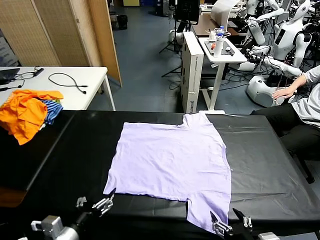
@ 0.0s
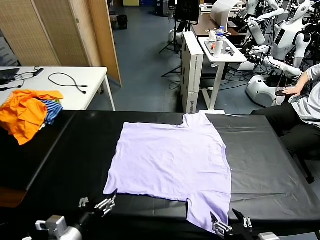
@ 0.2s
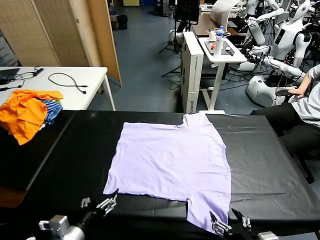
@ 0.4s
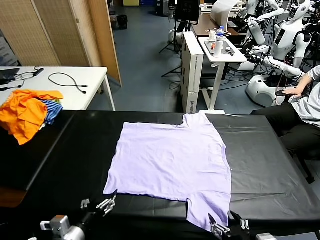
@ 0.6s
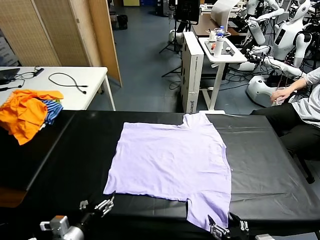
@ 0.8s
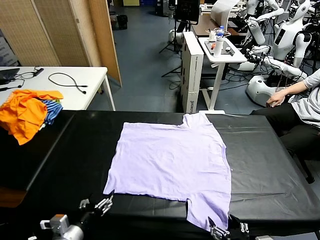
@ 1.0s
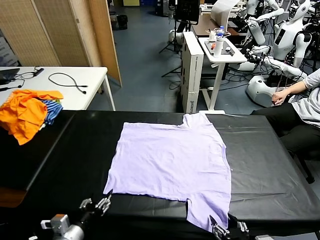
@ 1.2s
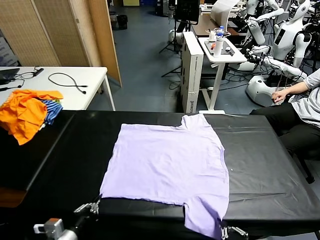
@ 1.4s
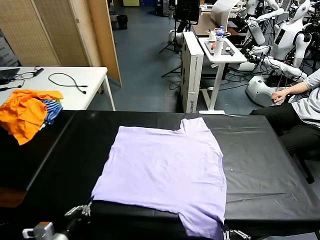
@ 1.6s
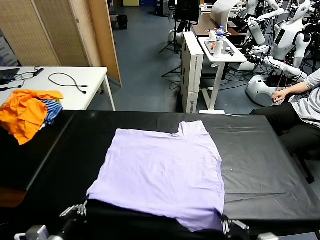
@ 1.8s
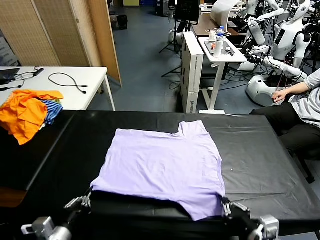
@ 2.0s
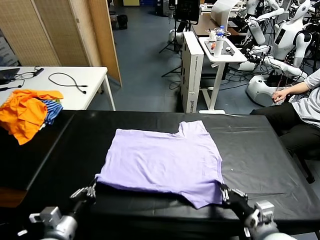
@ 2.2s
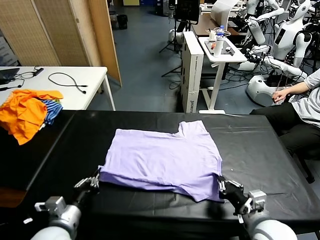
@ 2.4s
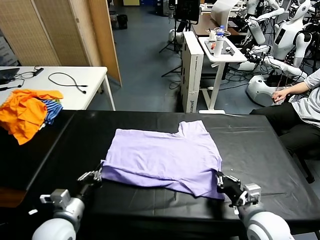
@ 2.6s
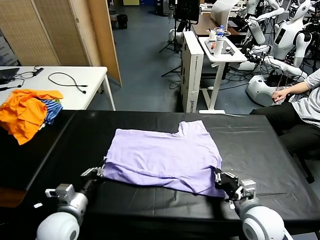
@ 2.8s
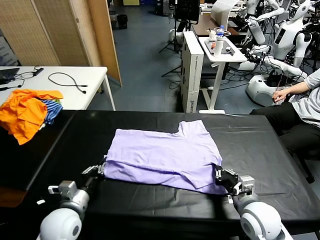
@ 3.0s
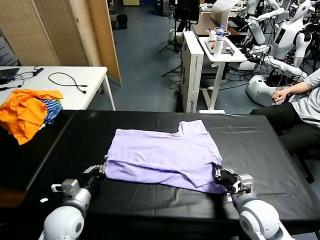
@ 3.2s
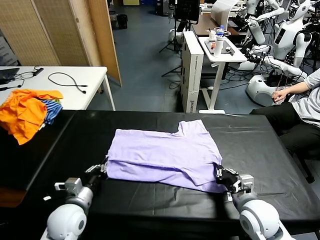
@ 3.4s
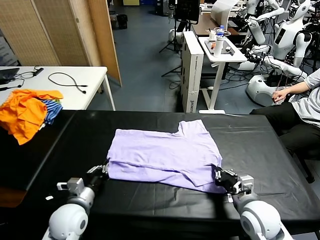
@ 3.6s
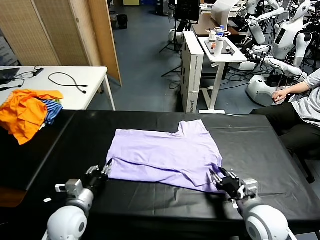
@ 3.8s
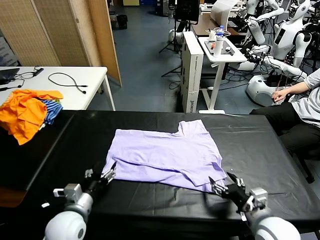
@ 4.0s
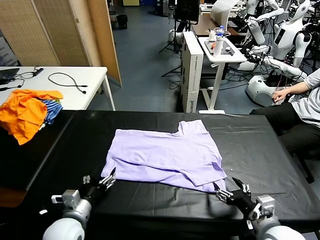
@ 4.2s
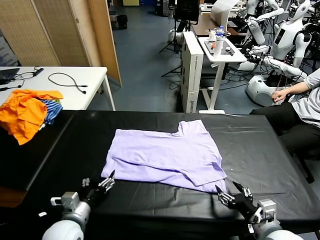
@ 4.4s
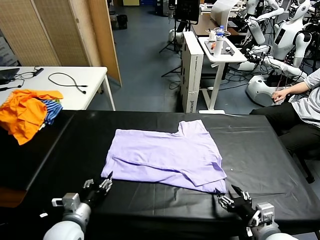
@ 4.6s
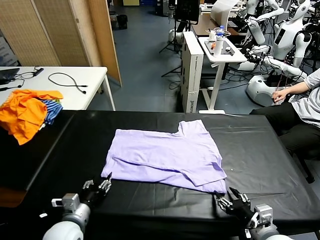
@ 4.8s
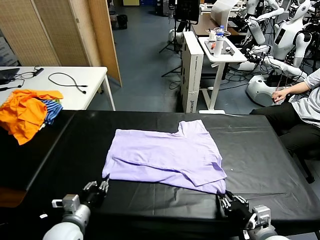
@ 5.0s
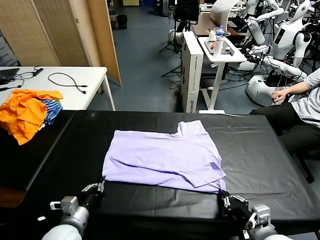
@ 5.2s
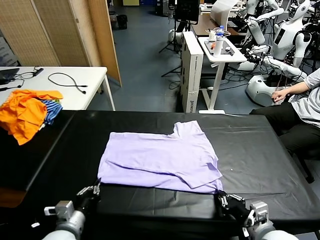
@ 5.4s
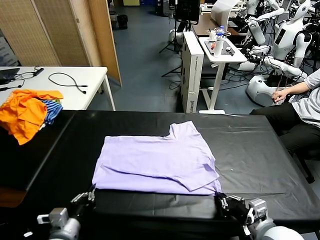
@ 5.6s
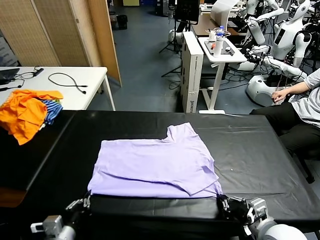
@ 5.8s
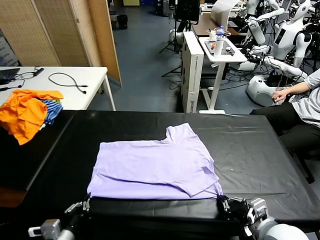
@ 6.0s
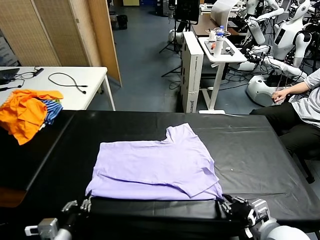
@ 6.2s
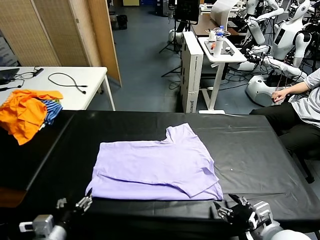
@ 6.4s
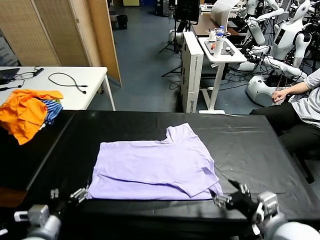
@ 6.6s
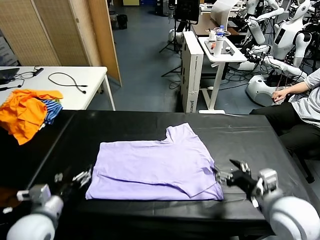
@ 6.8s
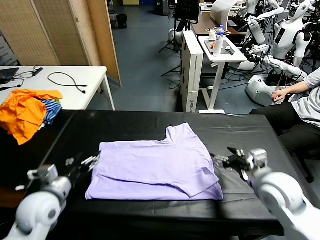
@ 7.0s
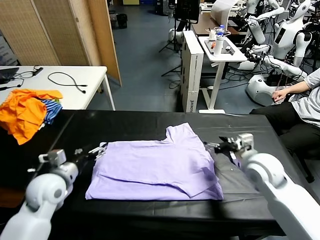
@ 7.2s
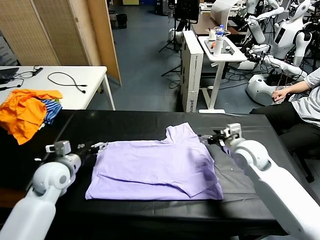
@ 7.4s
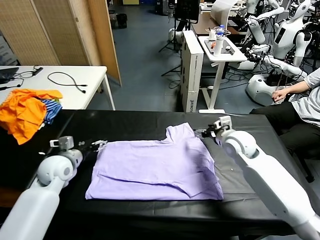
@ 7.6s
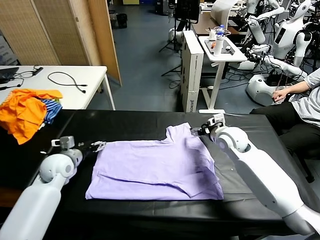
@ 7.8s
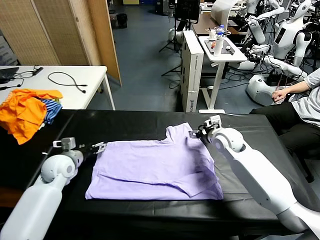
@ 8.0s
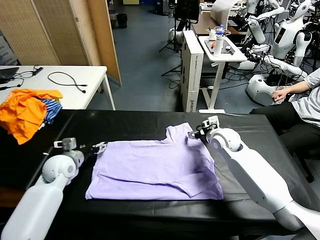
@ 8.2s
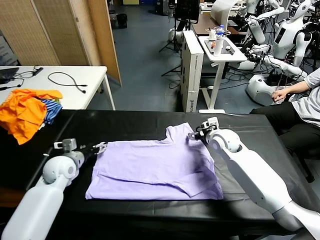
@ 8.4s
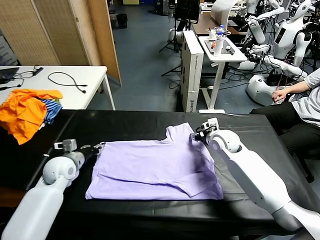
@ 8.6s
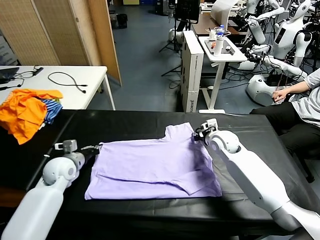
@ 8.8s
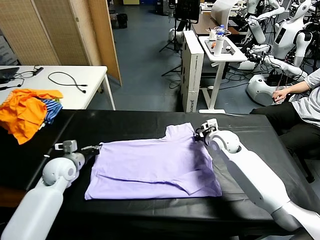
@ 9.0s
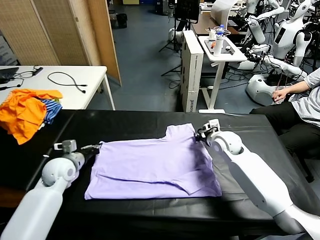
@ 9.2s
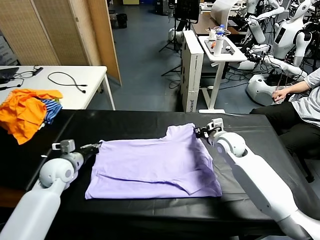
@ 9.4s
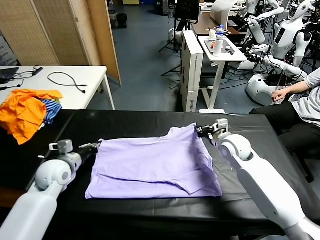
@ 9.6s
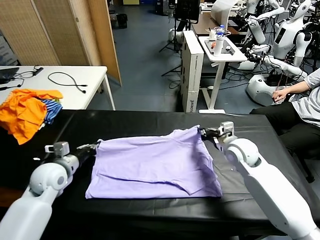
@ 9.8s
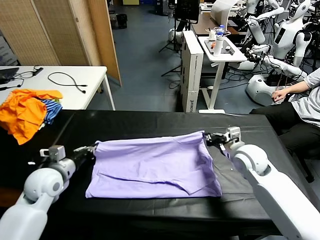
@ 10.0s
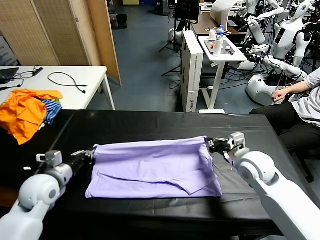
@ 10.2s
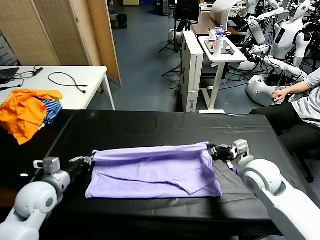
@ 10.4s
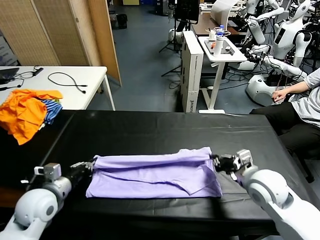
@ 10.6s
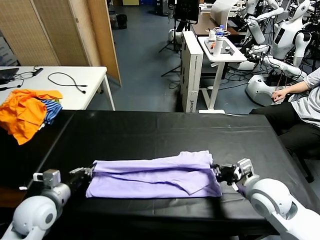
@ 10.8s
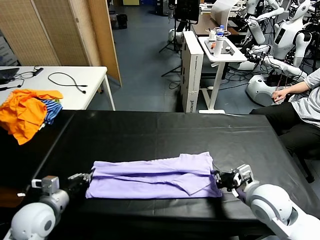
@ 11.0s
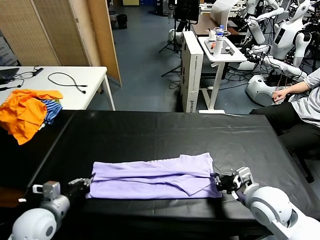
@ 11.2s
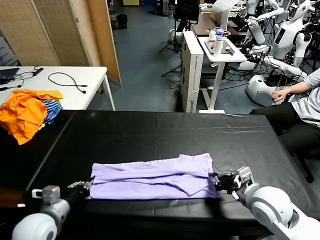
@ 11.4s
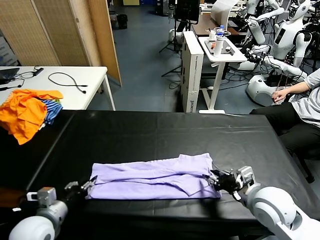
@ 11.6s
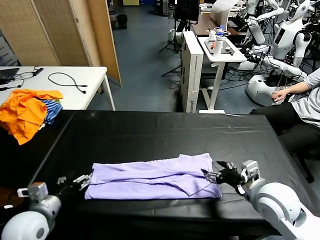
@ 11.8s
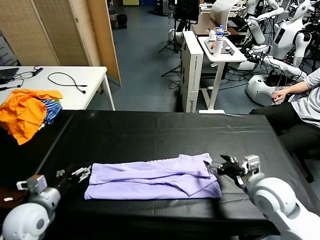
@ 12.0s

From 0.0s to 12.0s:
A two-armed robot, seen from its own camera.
Task of the whole recording: fold and organize the clothes.
Step, from 0.0s to 1.4s: use both grippers simultaneously to clamp the lower edge of the clothing fabric.
Step, from 1.6s to 3.8s: use both grippers to drag the lower edge of the fabric forward and fold it over the upper edge.
Step, from 4.0s to 6.4s: Drag the clothes downward with both gripper.
Step, from 6.6s to 9.4s: use both grippers simultaneously to clamp the upper edge of the clothing fabric.
From 1.6s to 3.0s: The right gripper shifts some 15 cm forward, while the left gripper ends up about 5 cm from where it was.
From 3.0s to 4.4s: The left gripper moves forward, some 5 cm, and opens. Meanwhile the right gripper opens up.
From 4.4s to 6.0s: The left gripper moves backward, about 5 cm, and closes. The right gripper closes up.
From 6.0s to 7.6s: The right gripper heads forward, covering about 20 cm, and opens, while the left gripper travels forward and upward by roughly 15 cm, and opens.
From 7.6s to 9.0s: The left gripper travels forward and downward by some 10 cm, and closes up; the right gripper moves forward, downward and to the left, roughly 15 cm, and closes up.
From 9.0s to 10.4s: The left gripper goes approximately 5 cm backward, and closes its fingers; the right gripper travels backward by about 10 cm, and closes its fingers.
From 10.4s to 12.0s: The grippers both shift backward by approximately 15 cm. The right gripper opens its fingers. Meanwhile the left gripper opens its fingers.

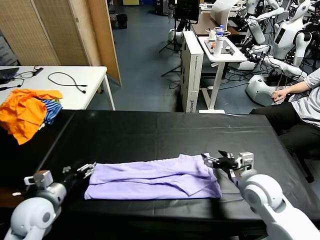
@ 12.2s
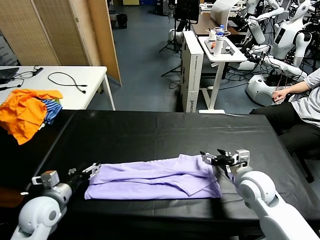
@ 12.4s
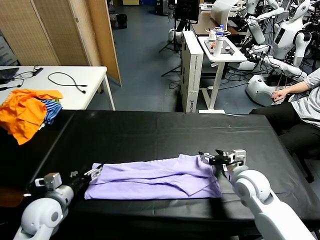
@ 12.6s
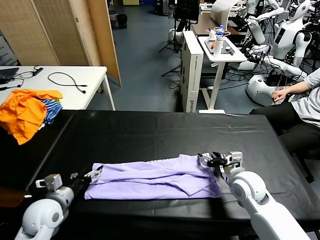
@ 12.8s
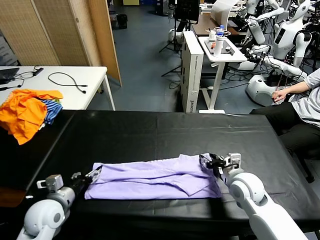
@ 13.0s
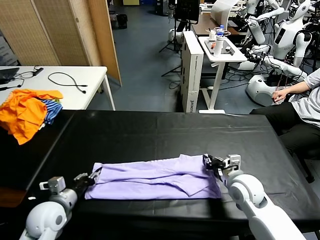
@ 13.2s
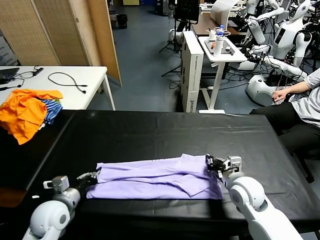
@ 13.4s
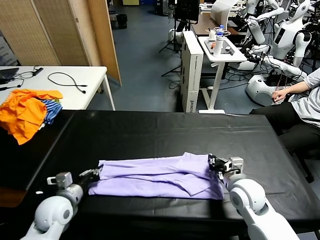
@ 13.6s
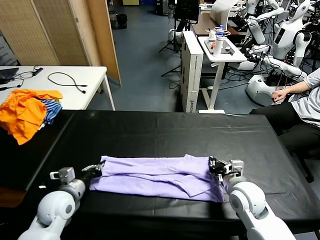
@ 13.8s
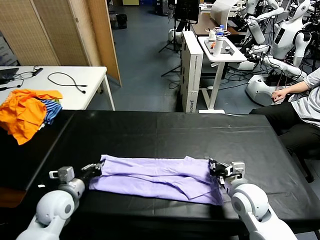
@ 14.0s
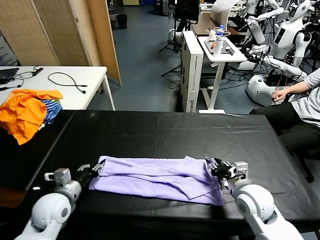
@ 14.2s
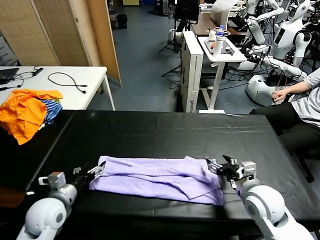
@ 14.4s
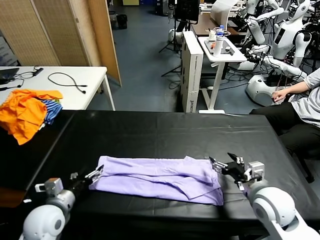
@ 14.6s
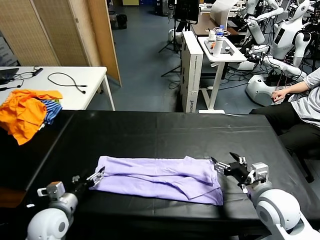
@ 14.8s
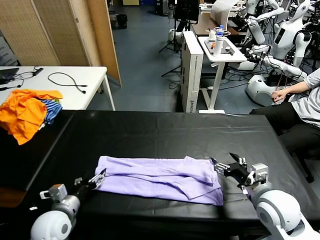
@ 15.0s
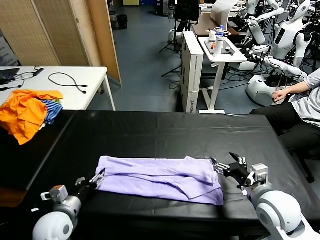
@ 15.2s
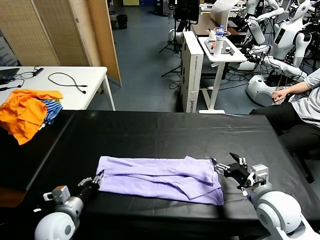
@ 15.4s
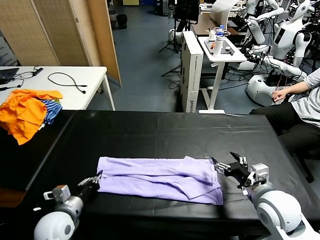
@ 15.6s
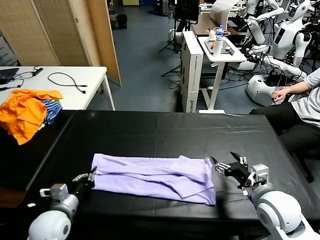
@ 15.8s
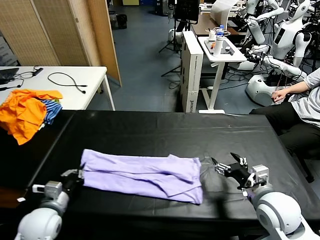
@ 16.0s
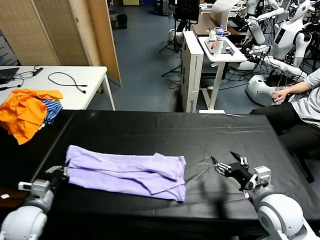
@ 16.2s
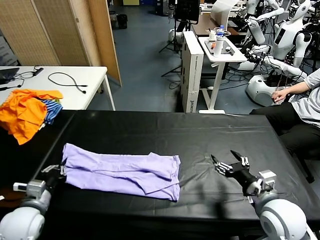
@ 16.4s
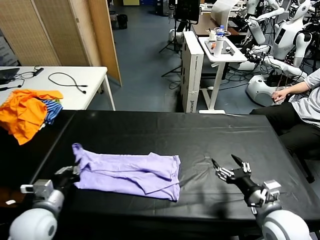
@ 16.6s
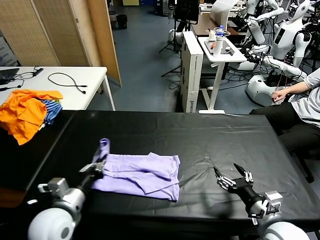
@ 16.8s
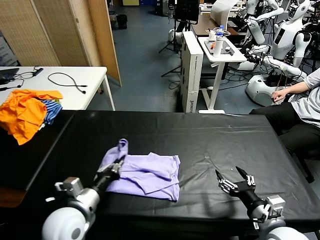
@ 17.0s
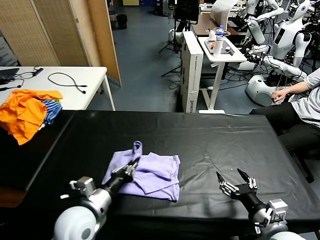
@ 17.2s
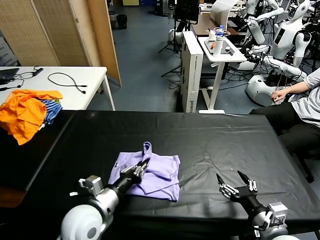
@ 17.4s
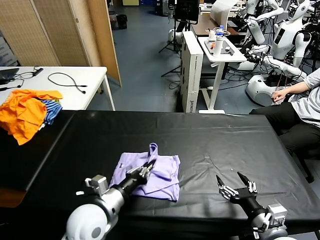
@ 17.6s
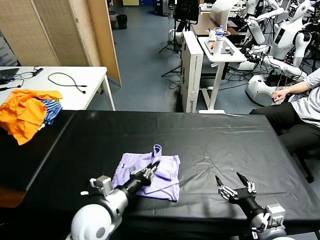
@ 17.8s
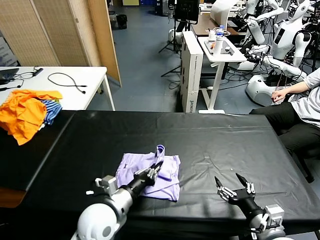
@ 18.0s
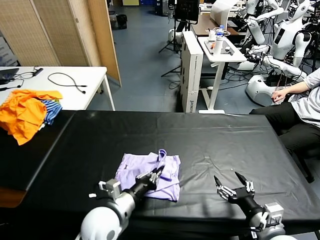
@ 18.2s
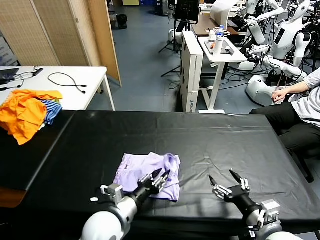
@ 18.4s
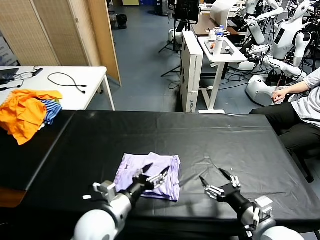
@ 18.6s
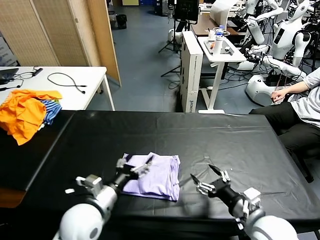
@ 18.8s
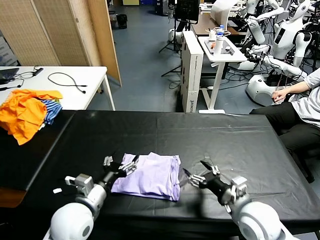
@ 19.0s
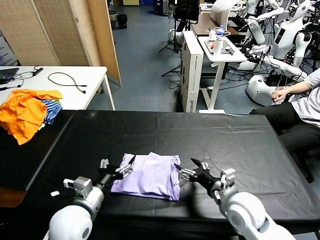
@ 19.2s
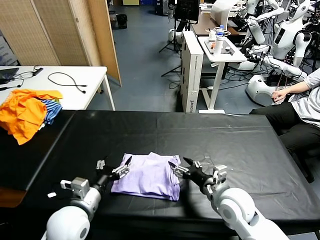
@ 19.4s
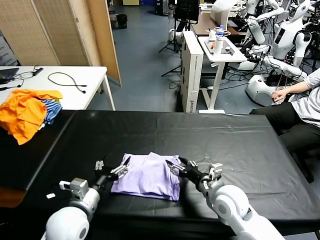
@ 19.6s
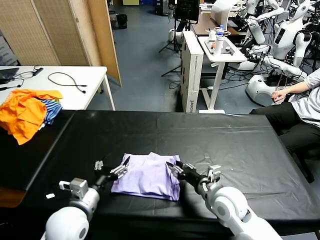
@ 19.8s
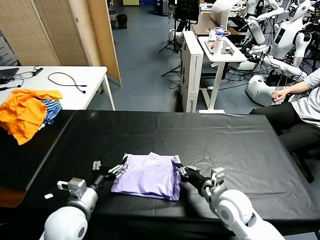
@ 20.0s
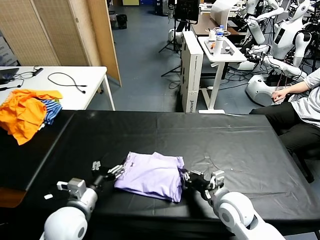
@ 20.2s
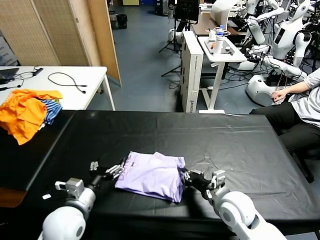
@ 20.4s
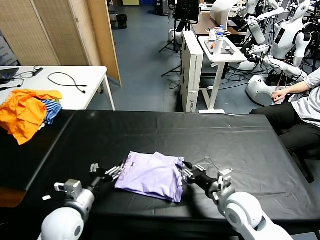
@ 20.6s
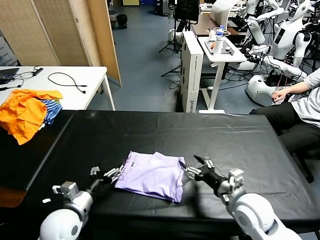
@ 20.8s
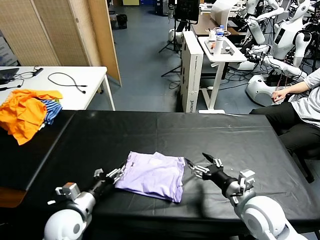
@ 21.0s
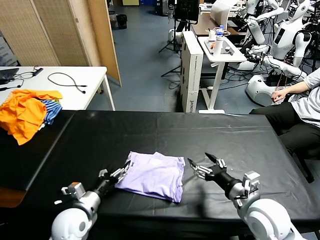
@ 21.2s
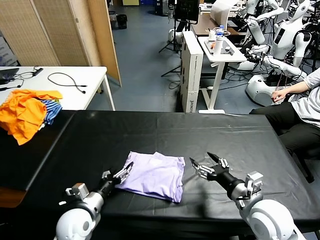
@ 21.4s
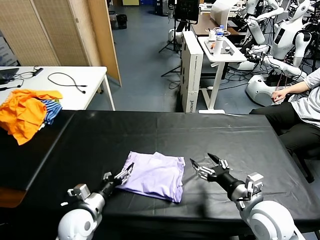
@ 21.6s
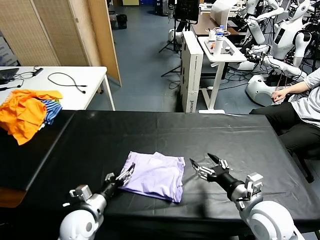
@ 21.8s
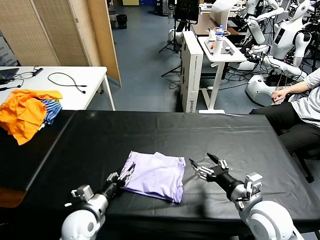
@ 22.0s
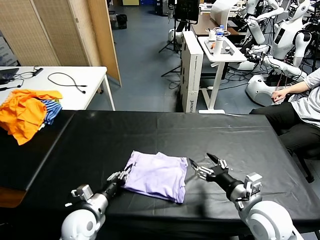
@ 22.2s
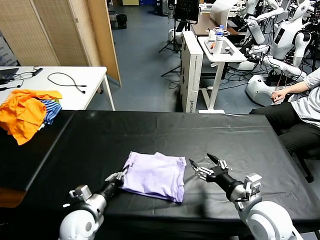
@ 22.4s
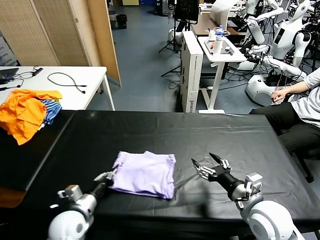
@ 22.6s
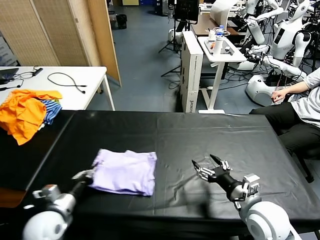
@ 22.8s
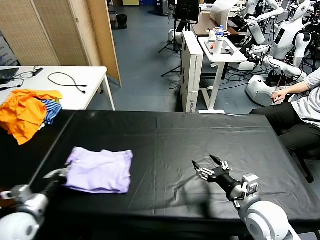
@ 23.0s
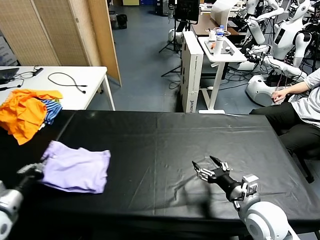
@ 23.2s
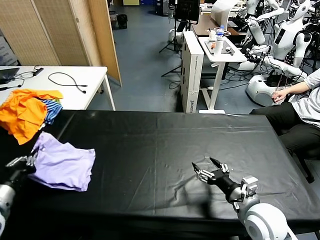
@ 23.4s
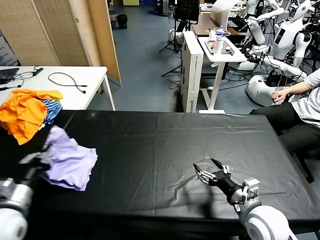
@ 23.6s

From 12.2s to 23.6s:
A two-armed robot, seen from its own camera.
Task of the whole recording: fold and organize the clothes.
Step, from 12.2s to 14.4s: use both grippers to drag the upper edge of the fabric backward and fold it over the lower edge.
Step, from 14.6s to 15.6s: use the left gripper to clamp the left edge of the fabric.
Step, from 15.8s to 20.6s: use the left gripper to drag the left edge of the fabric to the left and folds it over the right edge.
From 12.2s to 13.6s: The left gripper ends up approximately 5 cm from where it was, and closes. Meanwhile the right gripper heads downward and forward, covering about 10 cm, and closes its fingers.
From 13.6s to 15.0s: The right gripper travels backward and upward by about 10 cm, and opens. Meanwhile the left gripper opens.
From 15.0s to 16.4s: The left gripper closes up.
From 16.4s to 17.8s: The left gripper travels to the right by roughly 15 cm, while the right gripper travels backward by some 10 cm.
From 17.8s to 19.4s: The right gripper goes roughly 15 cm forward and to the left. The left gripper opens up.
From 19.4s to 20.8s: The right gripper closes its fingers.
From 20.8s to 22.2s: The left gripper travels downward by some 10 cm. The right gripper changes place by roughly 5 cm, and opens.
From 22.2s to 23.6s: The left gripper moves to the left and upward, roughly 25 cm, and closes.
